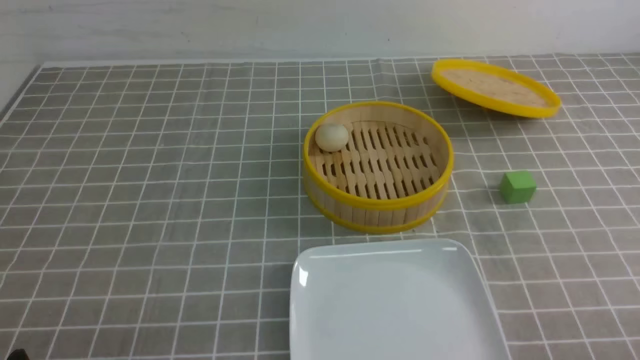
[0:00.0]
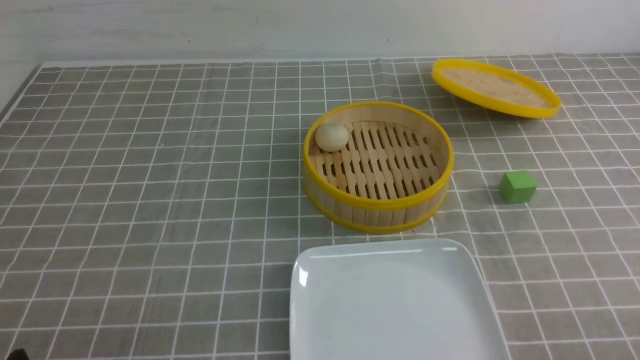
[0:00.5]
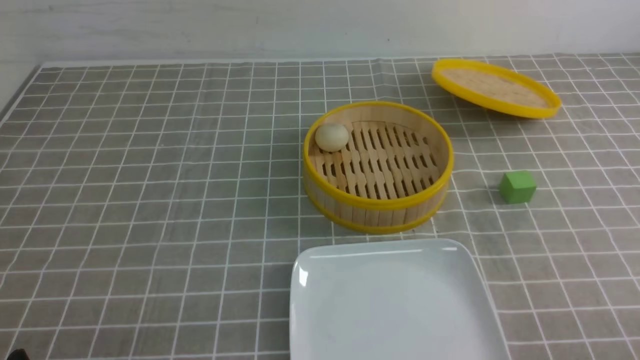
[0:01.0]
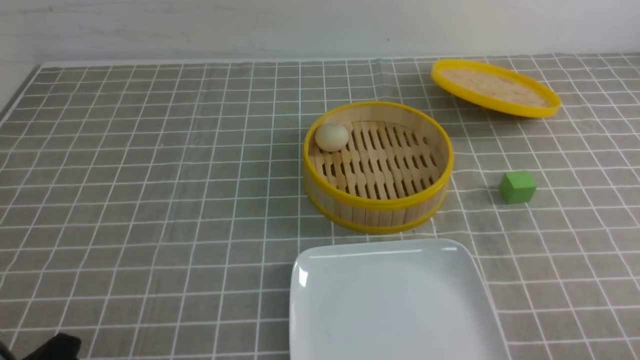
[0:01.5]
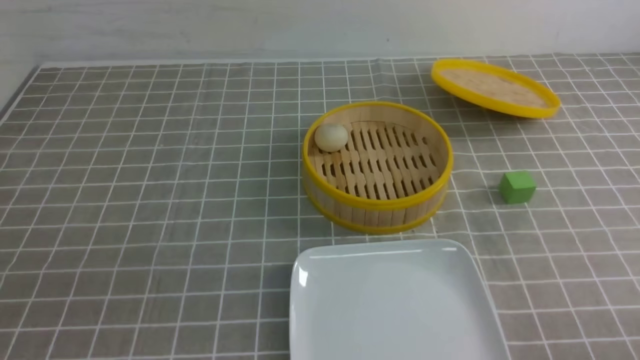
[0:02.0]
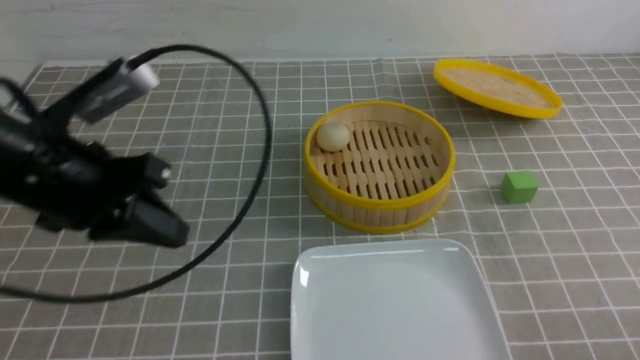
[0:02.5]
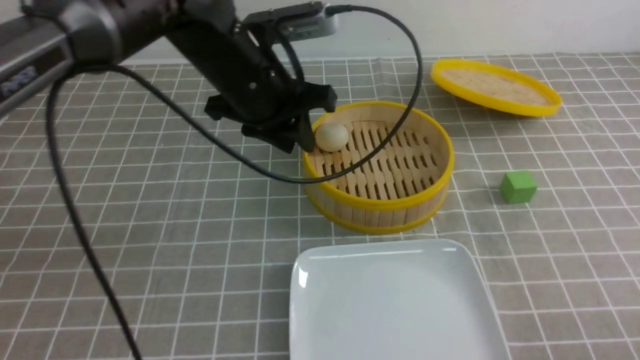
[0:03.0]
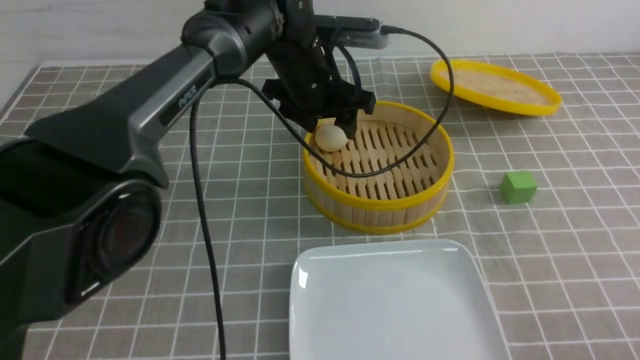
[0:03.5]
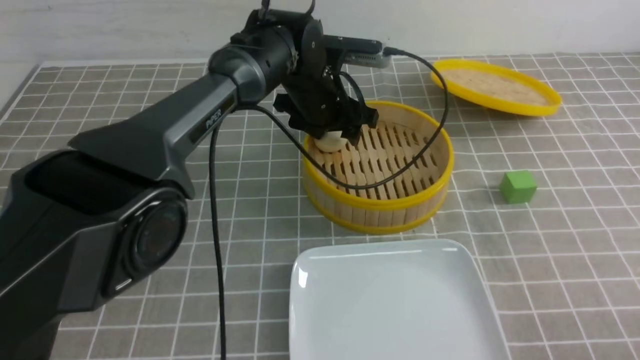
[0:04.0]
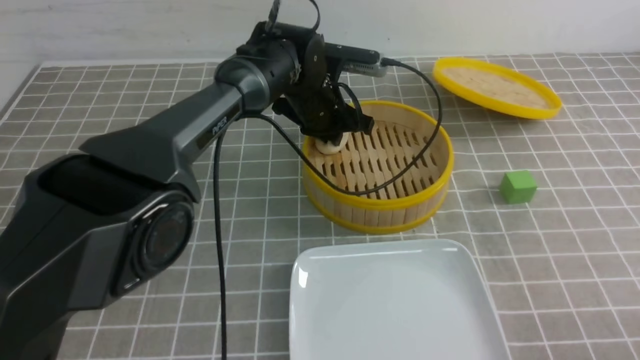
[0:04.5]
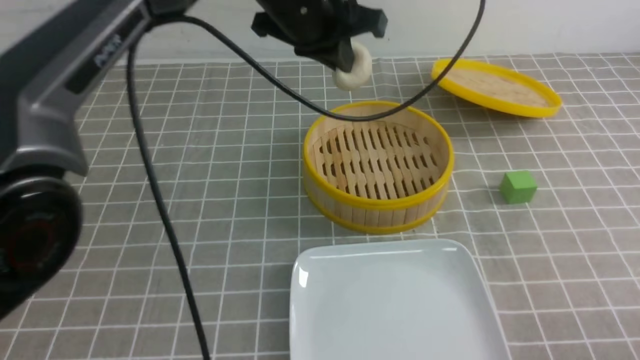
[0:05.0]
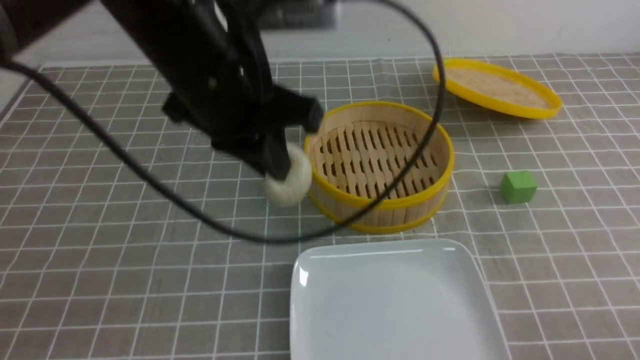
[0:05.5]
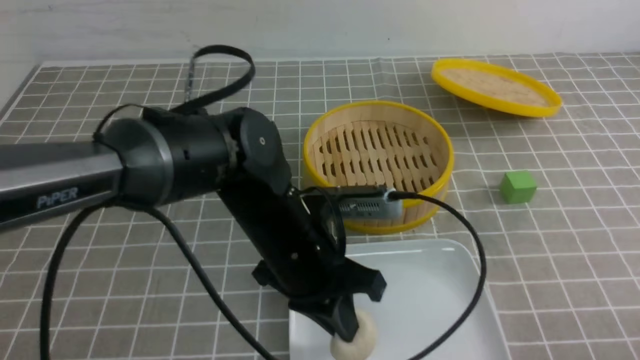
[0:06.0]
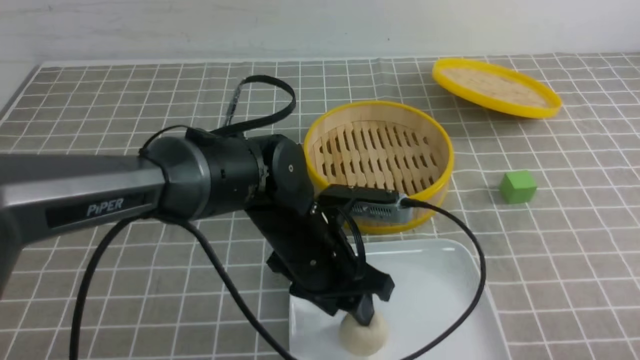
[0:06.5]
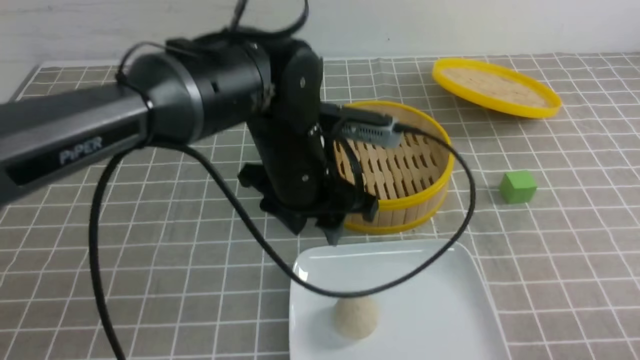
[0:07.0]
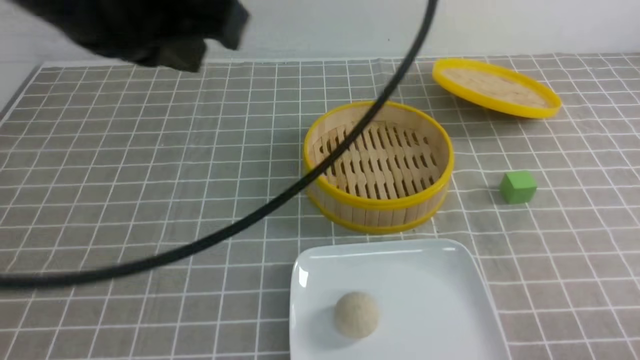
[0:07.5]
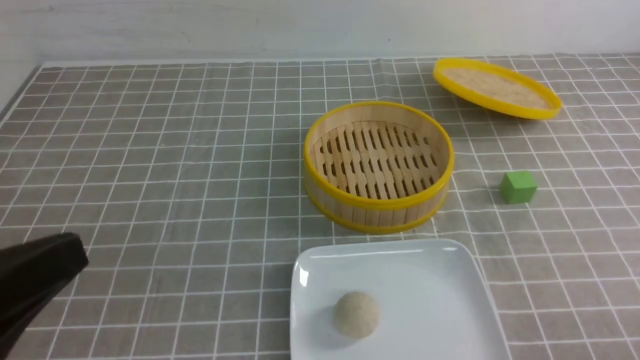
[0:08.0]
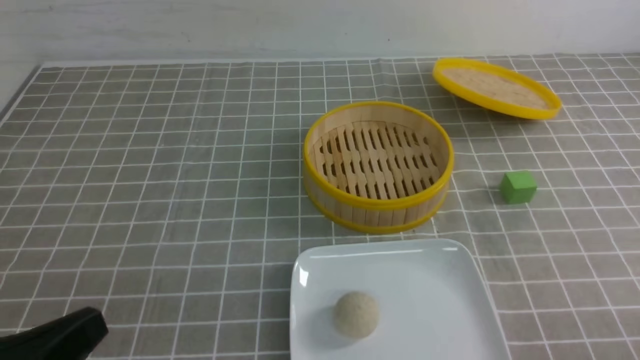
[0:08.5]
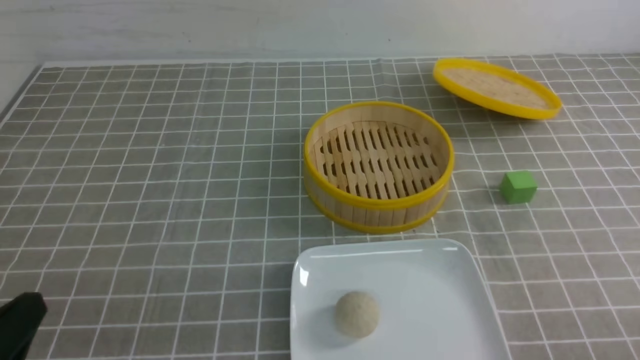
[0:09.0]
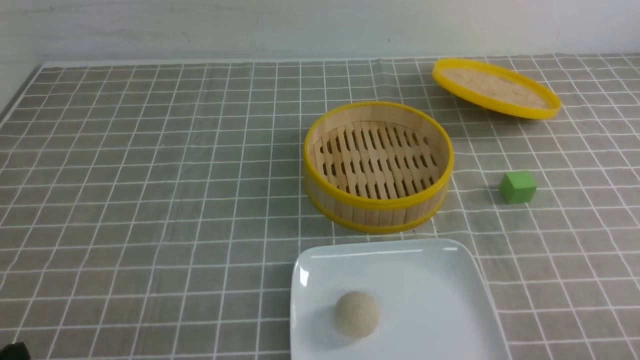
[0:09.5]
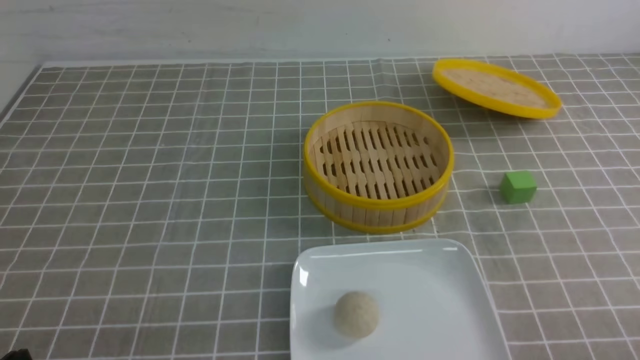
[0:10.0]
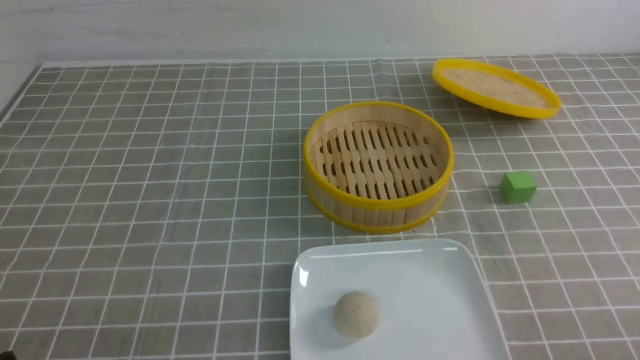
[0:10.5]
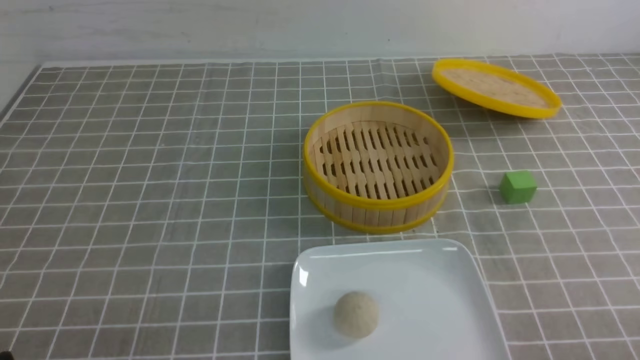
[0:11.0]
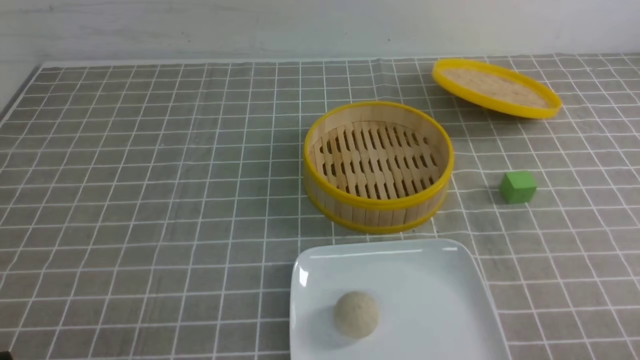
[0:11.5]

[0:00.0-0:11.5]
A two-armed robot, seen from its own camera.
Step, 0:00.0 to 0:04.5: use the left arm to grab the steamed stuffed bun that is closest to it.
Step, 0:05.0 to 0:06.5: use the left arm to put the steamed stuffed bun into the plate.
0:02.0 to 0:04.0: The left gripper travels forward and to the right by about 50 cm, and opens its fingers.
0:04.0 to 0:06.0: The left gripper shifts approximately 20 cm backward, and closes its fingers.
0:06.0 to 0:07.5: The left gripper heads upward, covering approximately 20 cm, and opens, then closes again.
0:07.5 to 0:09.5: The left gripper moves downward, backward and to the left, approximately 35 cm.
